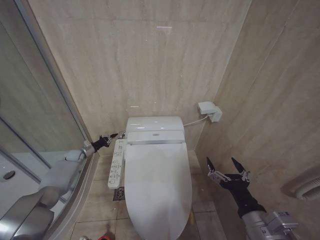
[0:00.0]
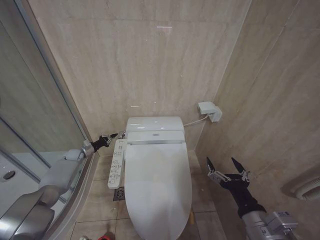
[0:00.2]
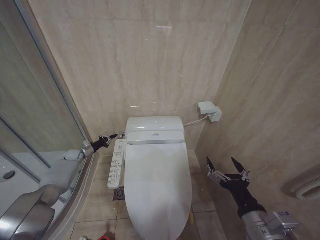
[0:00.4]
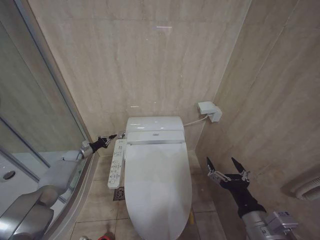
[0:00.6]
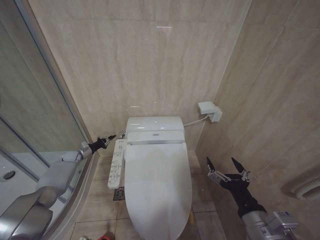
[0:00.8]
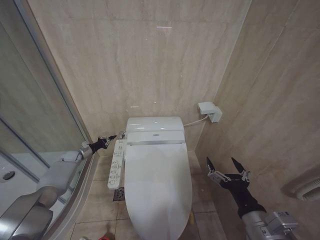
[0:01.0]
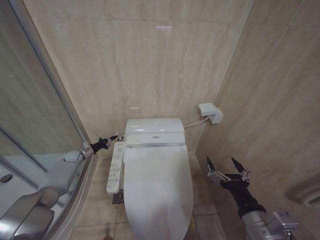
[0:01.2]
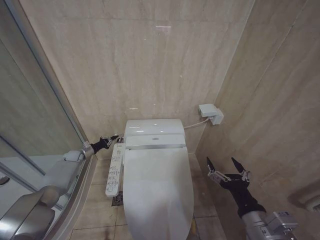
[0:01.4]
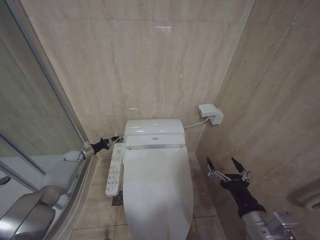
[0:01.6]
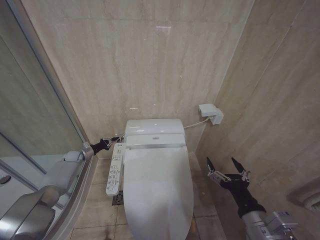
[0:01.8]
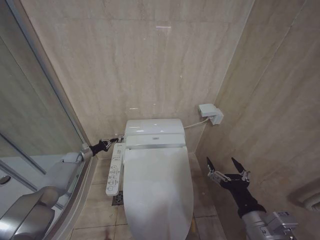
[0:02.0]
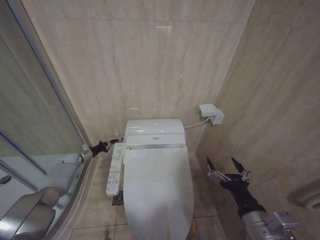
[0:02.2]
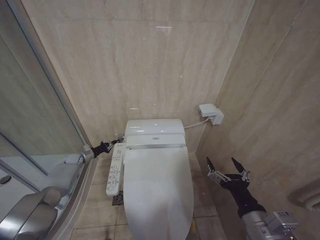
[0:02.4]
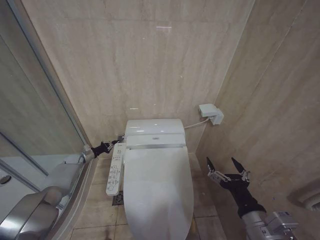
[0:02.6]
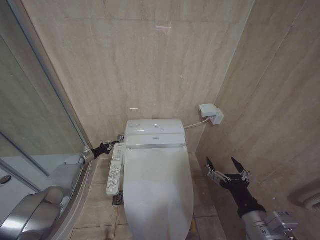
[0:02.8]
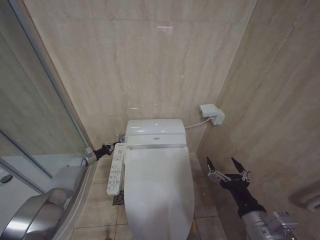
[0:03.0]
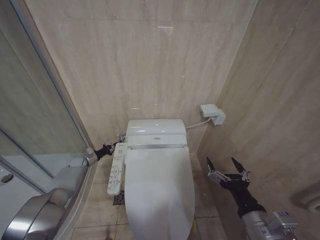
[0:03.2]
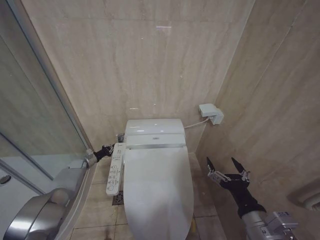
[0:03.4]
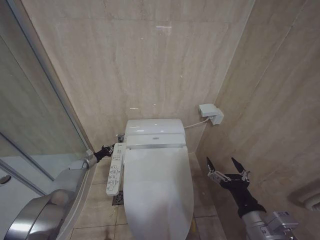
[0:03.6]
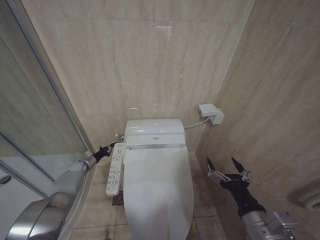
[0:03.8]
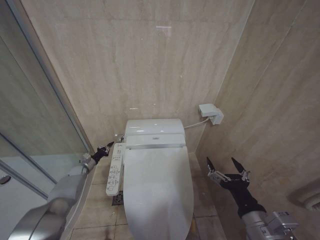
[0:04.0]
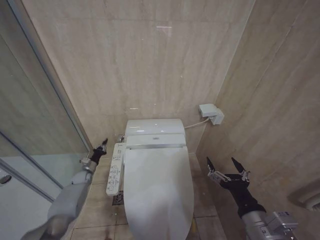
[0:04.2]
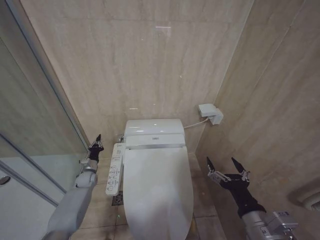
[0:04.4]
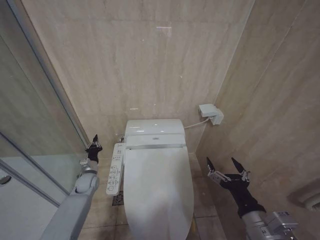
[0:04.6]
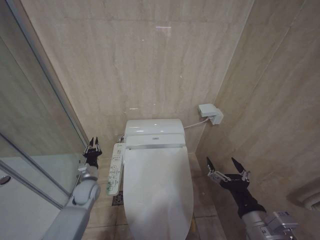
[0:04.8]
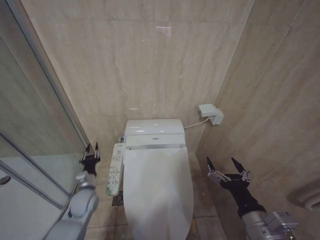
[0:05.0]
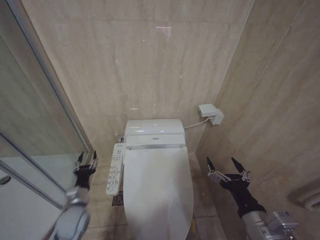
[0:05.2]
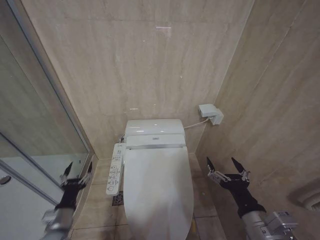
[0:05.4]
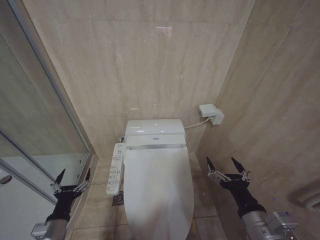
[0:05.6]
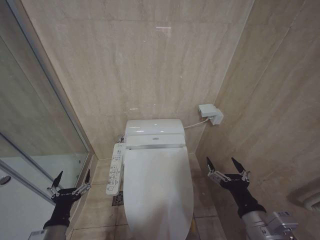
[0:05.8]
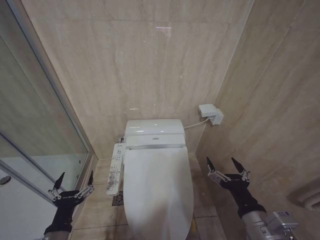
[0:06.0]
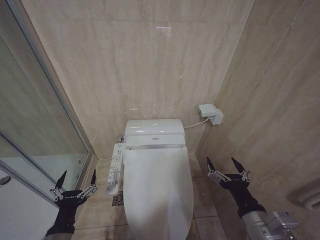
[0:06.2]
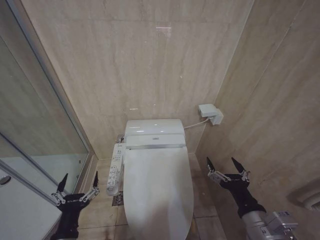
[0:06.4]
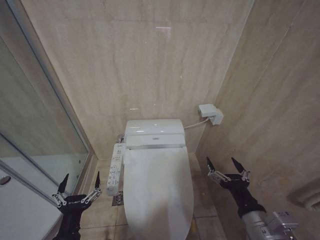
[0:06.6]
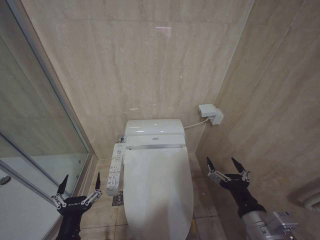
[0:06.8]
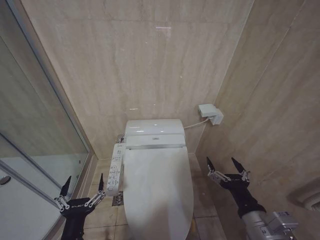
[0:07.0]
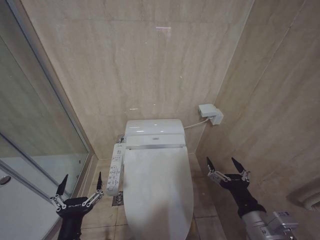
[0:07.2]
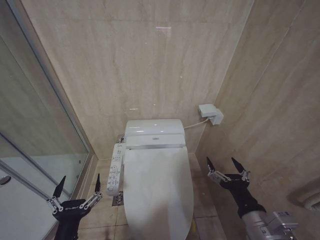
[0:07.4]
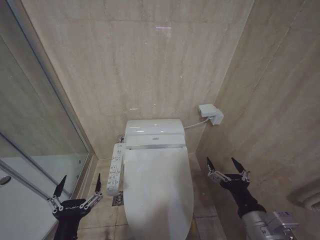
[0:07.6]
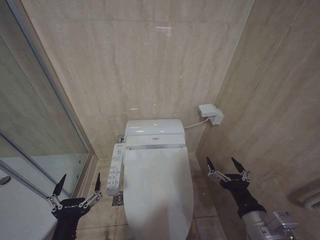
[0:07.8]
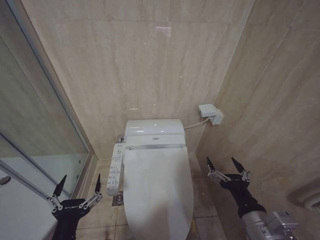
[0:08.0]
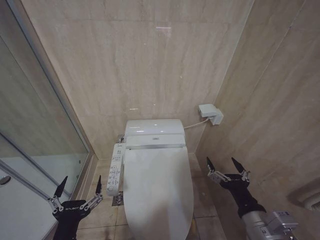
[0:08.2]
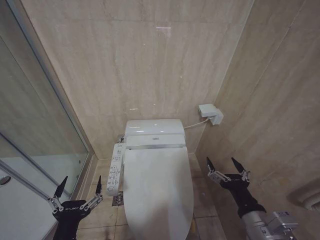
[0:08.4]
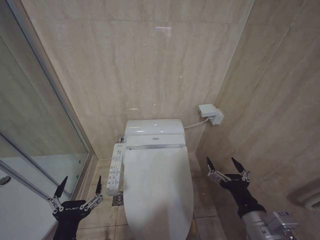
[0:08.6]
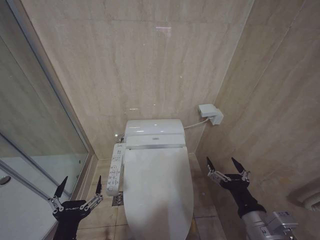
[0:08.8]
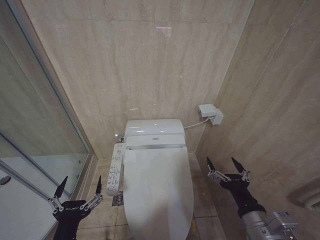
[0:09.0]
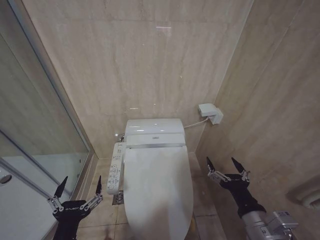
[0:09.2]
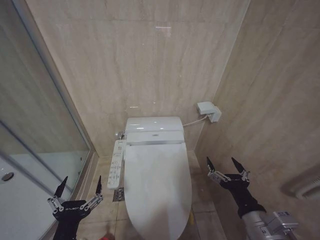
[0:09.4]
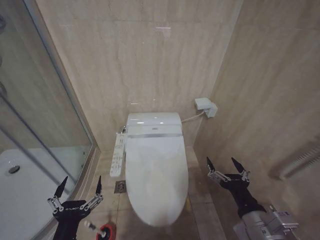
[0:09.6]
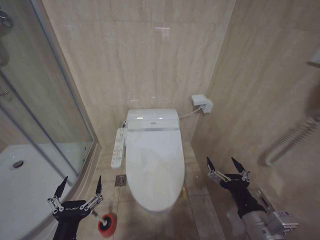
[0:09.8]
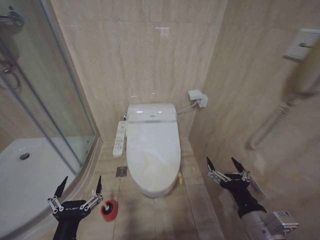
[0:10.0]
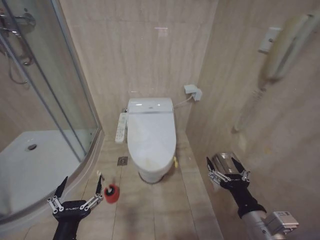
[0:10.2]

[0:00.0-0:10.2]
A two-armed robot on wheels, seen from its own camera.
Task of the whole recording: Open the toilet lid, clean the toilet bowl with a toilet brush, close the toilet lid, and flush.
0:00.0 to 0:03.0: The grippers stay close to where they were, moving slightly.
0:03.0 to 0:04.4: The left gripper heads to the right and backward, covering about 10 cm.
0:04.4 to 0:05.8: The left gripper shifts about 35 cm backward, and opens up.
0:05.8 to 0:07.2: The left gripper moves to the right, backward and upward, about 15 cm.
0:07.2 to 0:08.8: The grippers move only a little.

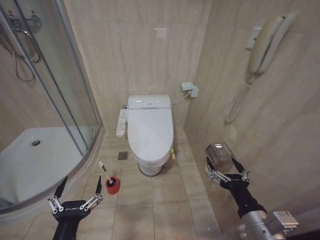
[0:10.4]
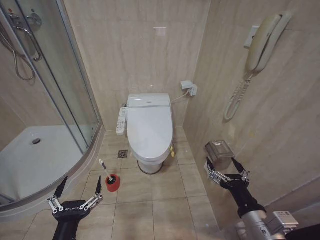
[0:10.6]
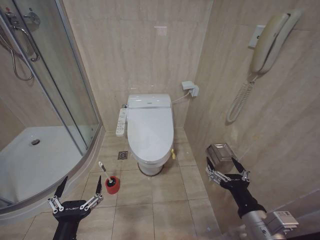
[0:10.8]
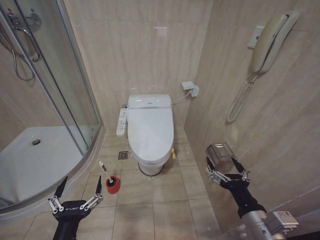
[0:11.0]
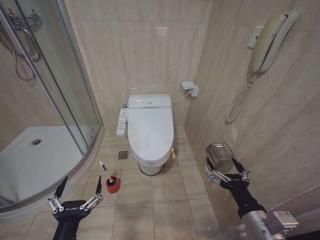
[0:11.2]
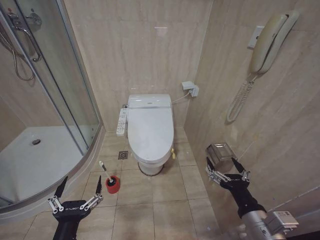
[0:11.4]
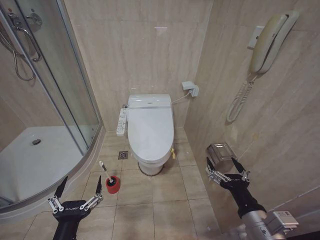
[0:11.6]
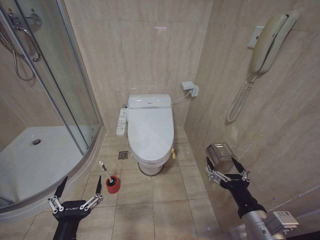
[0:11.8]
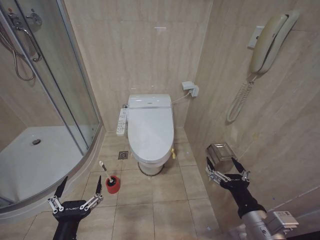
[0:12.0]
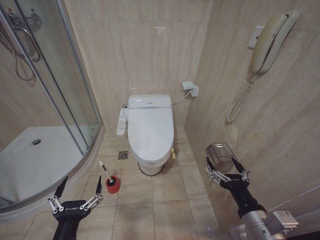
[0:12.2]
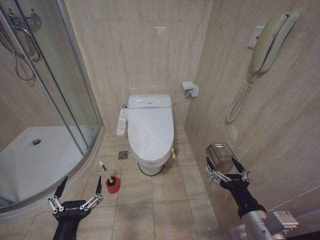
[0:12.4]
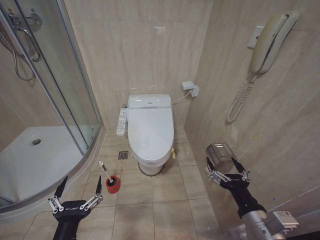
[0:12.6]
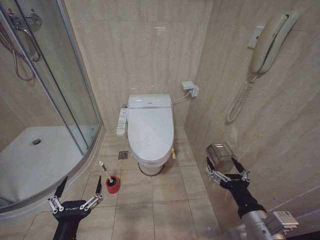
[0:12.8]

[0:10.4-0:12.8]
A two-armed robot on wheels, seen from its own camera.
Task of the whole recording: Open the toilet lid, clean the toilet bowl with a toilet brush, close the toilet lid, and flush.
0:10.4 to 0:12.8: Neither gripper changes place.

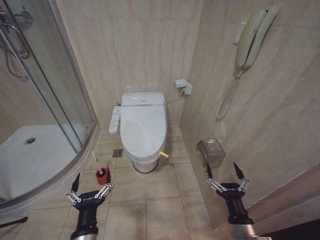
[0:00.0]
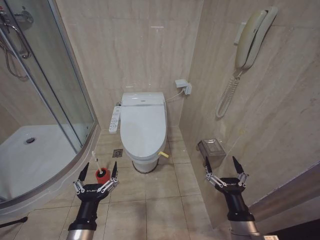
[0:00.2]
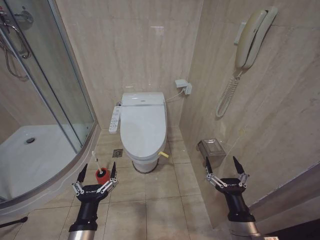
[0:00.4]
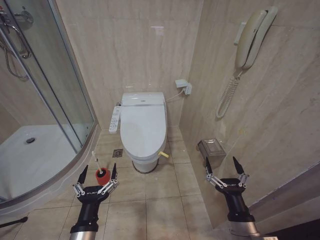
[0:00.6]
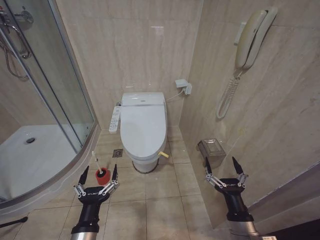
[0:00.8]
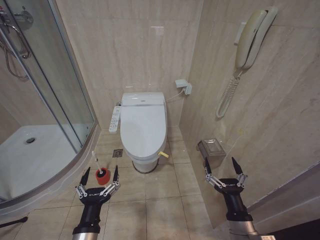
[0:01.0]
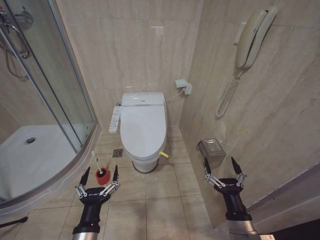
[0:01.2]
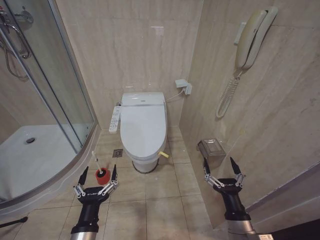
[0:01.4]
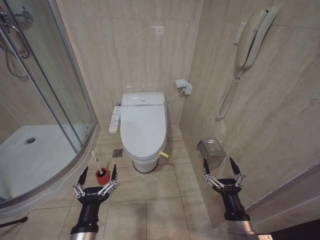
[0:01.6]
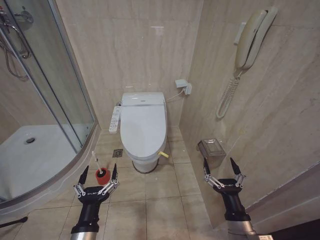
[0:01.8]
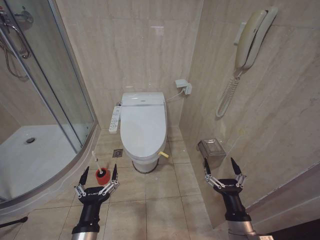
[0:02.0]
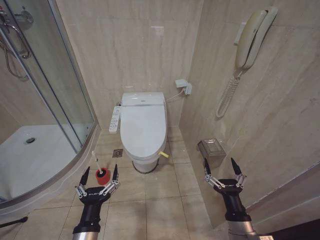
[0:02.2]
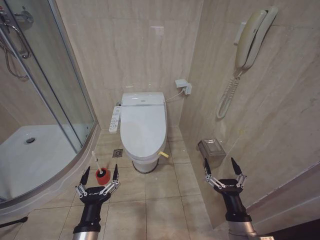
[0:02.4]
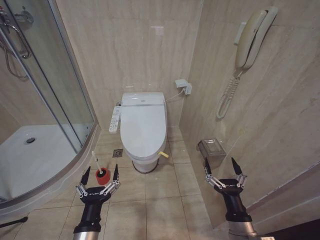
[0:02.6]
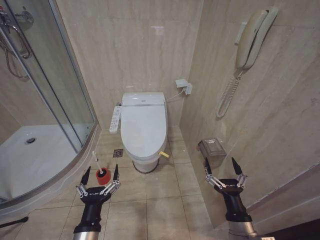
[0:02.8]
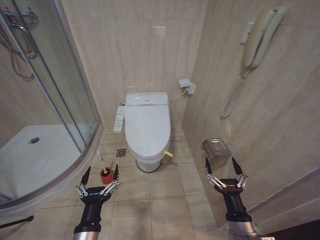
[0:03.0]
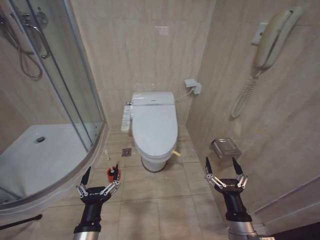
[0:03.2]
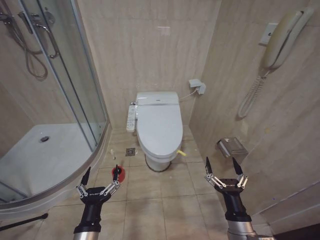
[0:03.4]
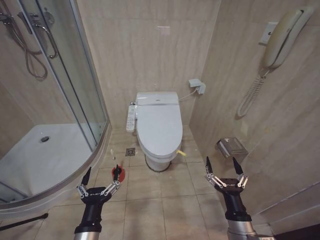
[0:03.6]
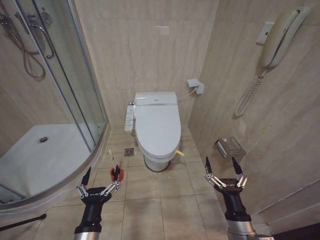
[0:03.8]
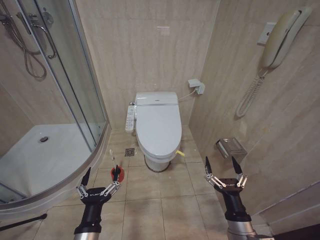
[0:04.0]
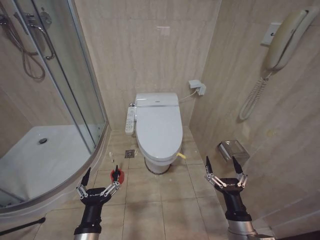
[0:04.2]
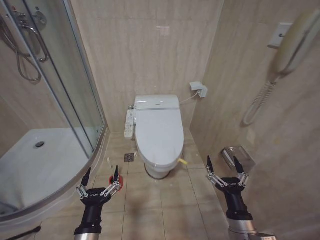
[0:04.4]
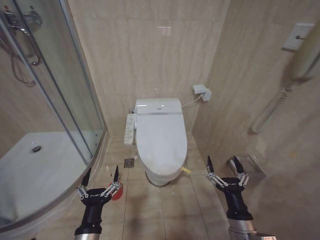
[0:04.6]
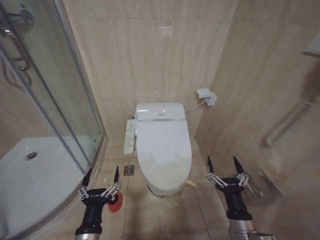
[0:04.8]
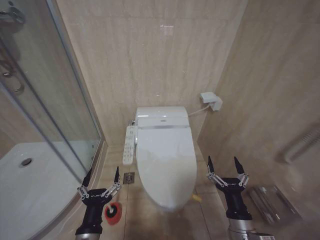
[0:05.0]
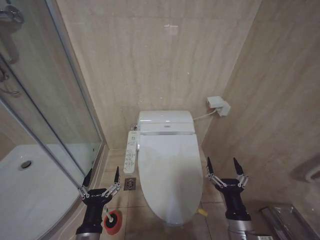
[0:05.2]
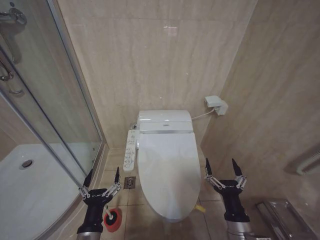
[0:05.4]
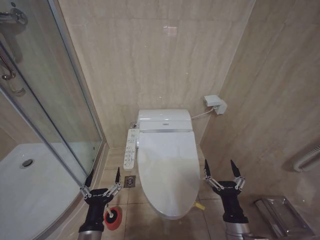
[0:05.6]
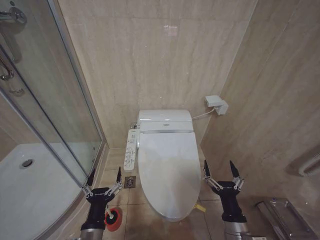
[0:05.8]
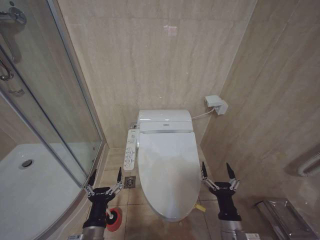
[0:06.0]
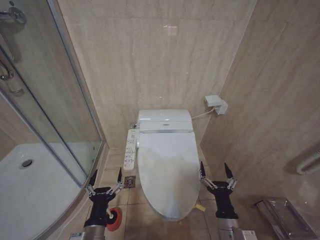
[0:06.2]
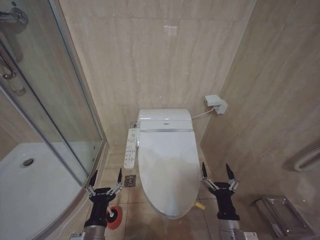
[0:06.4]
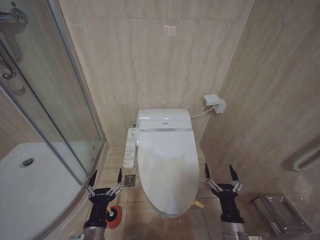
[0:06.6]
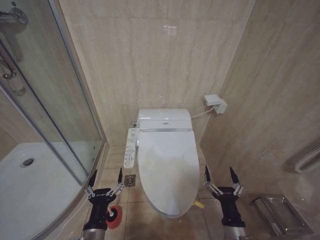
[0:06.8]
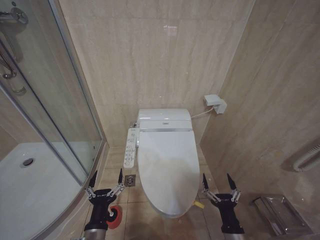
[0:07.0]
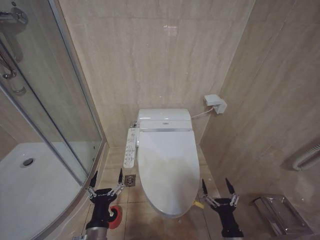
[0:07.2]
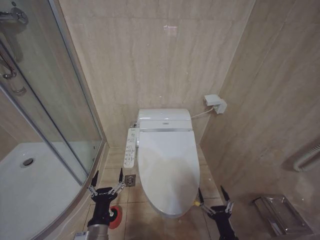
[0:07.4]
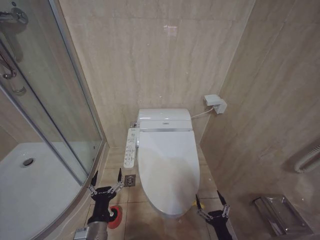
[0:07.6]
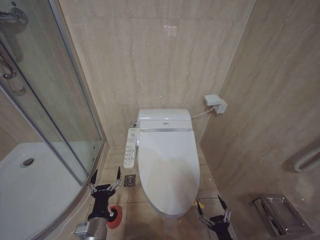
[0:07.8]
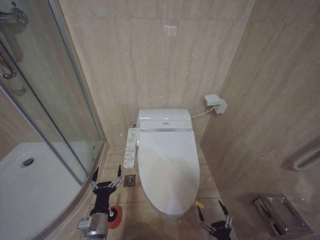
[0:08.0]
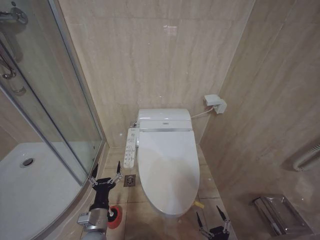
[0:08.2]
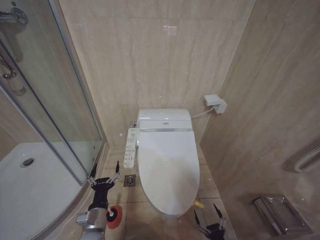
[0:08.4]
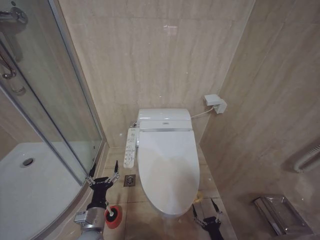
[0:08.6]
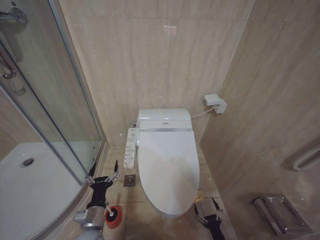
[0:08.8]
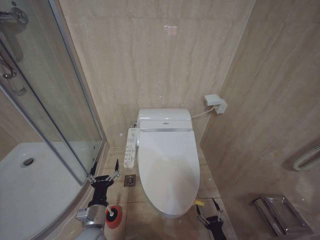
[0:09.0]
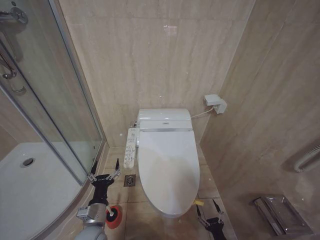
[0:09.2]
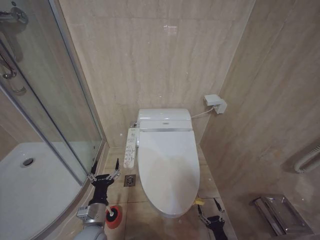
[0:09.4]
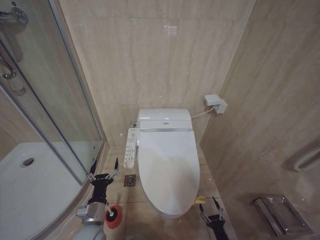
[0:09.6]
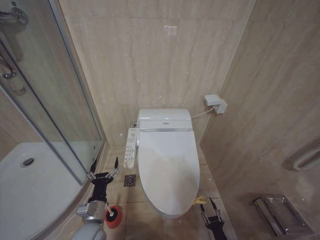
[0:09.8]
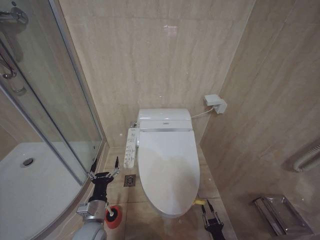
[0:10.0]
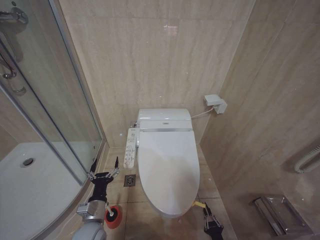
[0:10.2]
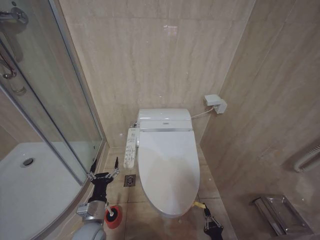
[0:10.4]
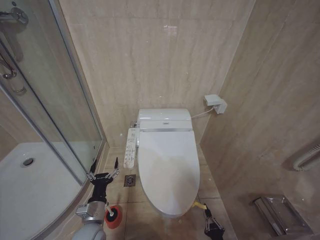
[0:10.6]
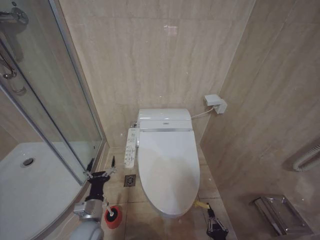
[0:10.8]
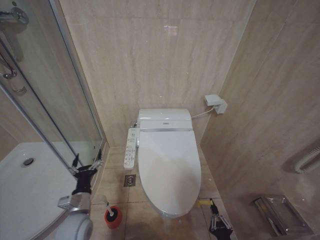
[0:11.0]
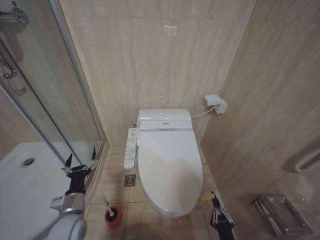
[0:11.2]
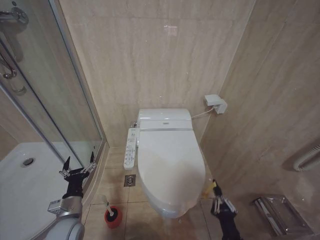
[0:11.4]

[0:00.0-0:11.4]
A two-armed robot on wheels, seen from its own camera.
Task of the whole recording: Open the toilet lid, clean the toilet bowl with a toilet brush, close the toilet lid, and flush.
0:01.4 to 0:04.2: The two grippers keep their place.
0:05.6 to 0:07.2: The right gripper goes roughly 5 cm downward.
0:07.2 to 0:08.6: The left gripper moves forward, about 5 cm. The right gripper is displaced downward by some 15 cm.
0:10.0 to 0:11.4: The right gripper moves upward, roughly 15 cm, and closes its fingers. Meanwhile the left gripper travels to the left by some 5 cm.
